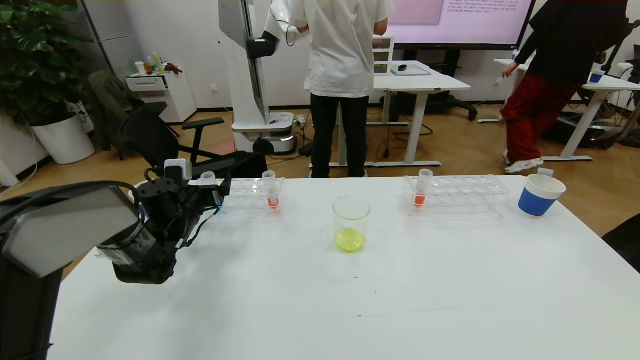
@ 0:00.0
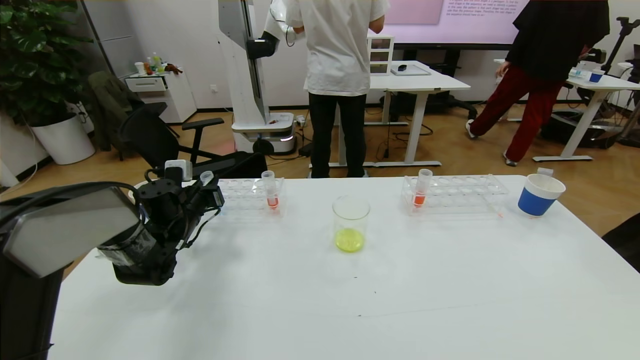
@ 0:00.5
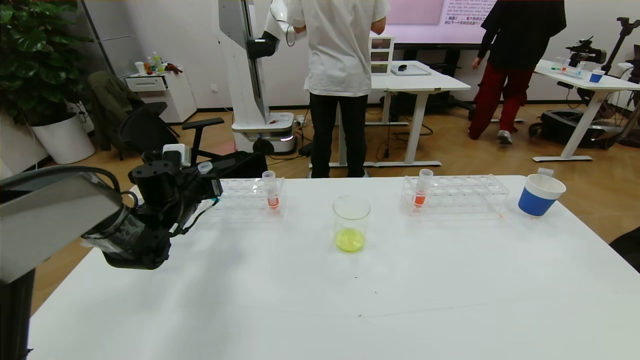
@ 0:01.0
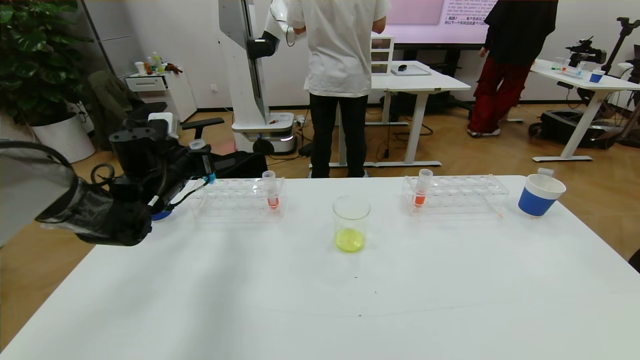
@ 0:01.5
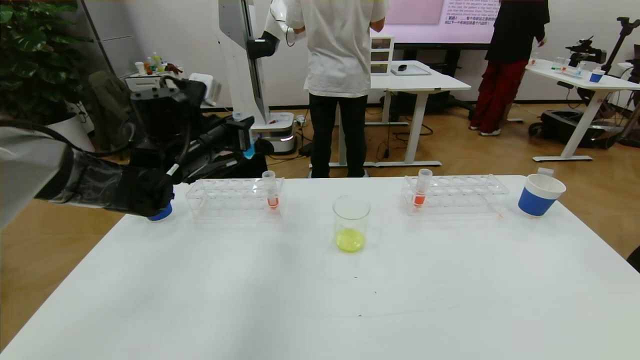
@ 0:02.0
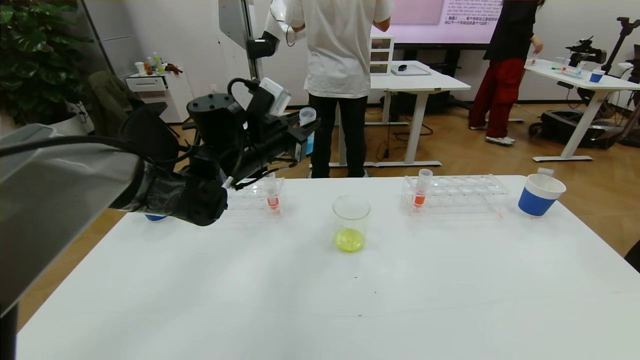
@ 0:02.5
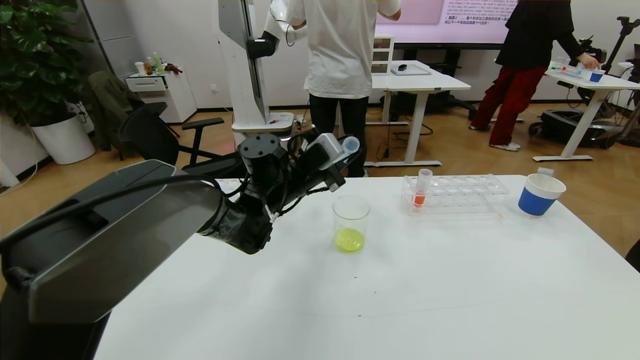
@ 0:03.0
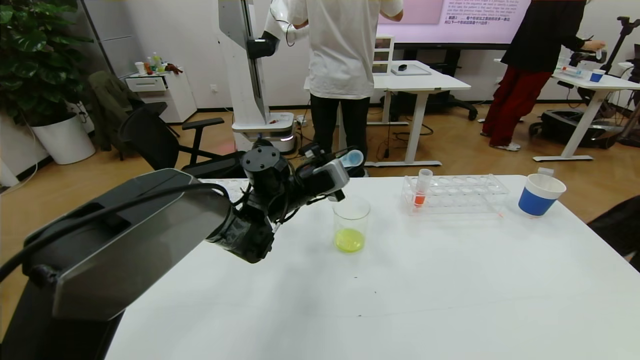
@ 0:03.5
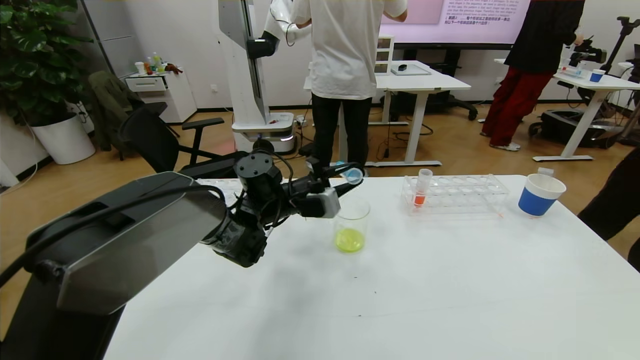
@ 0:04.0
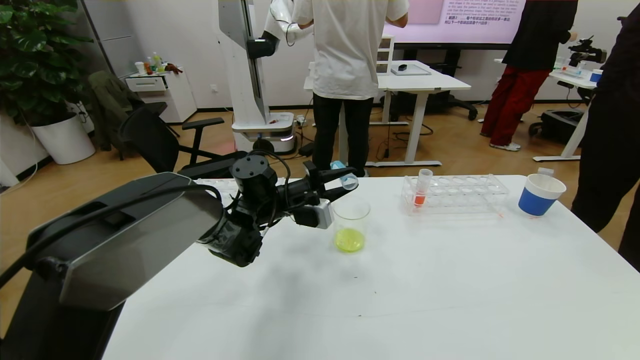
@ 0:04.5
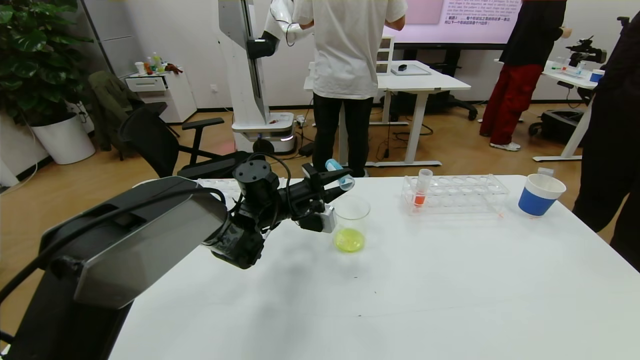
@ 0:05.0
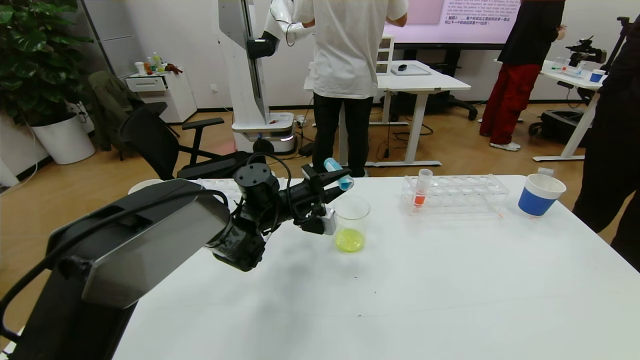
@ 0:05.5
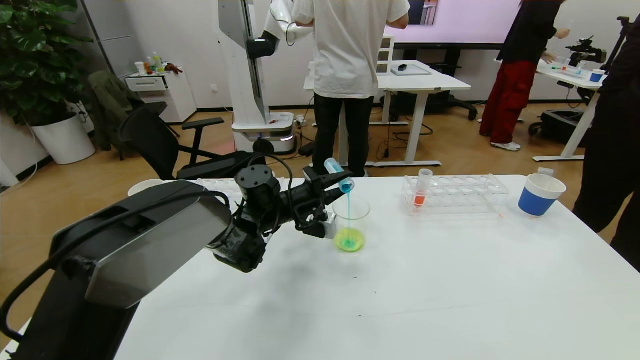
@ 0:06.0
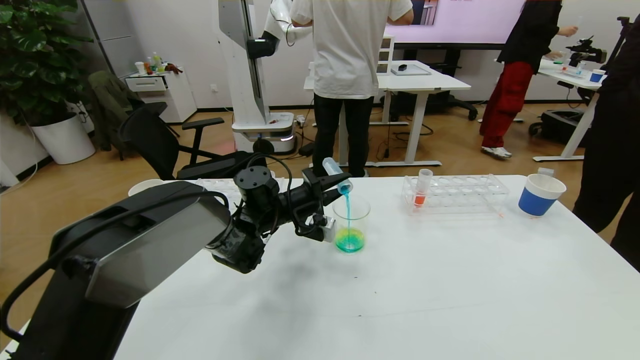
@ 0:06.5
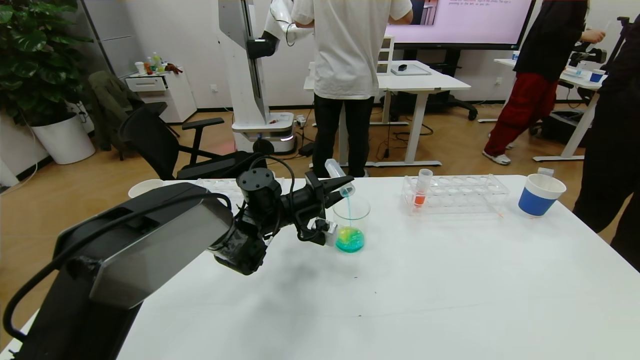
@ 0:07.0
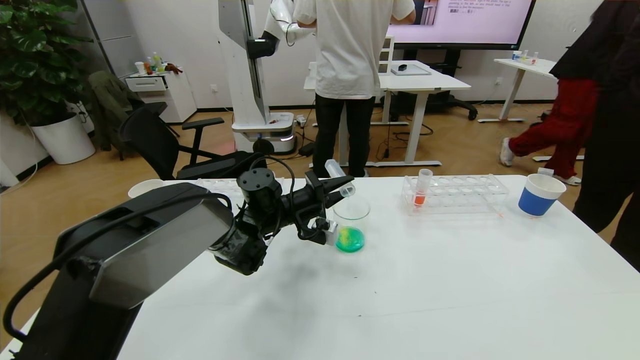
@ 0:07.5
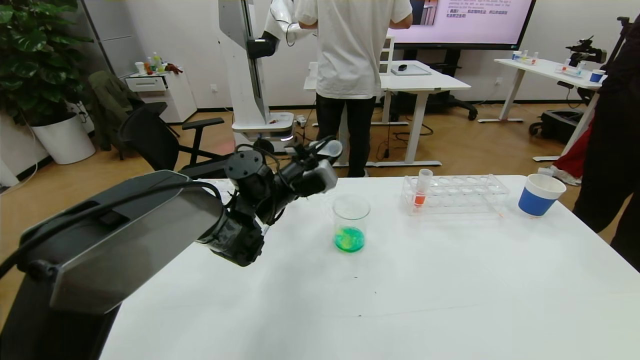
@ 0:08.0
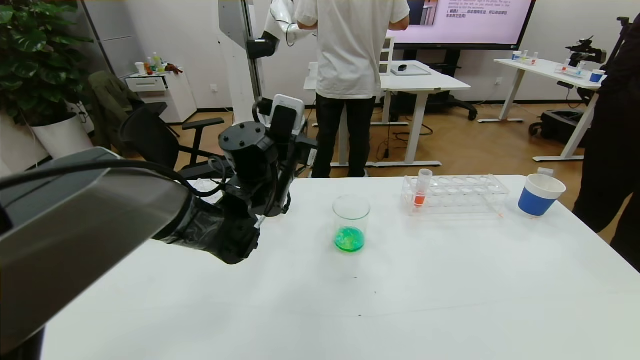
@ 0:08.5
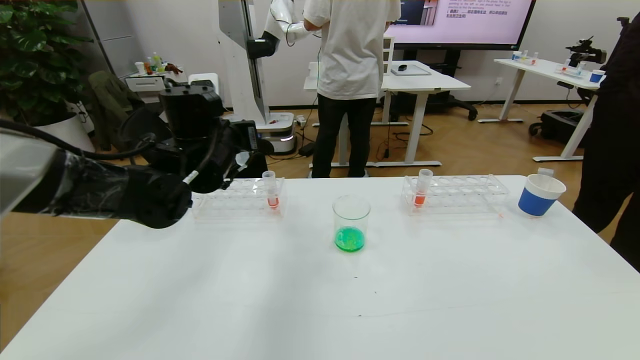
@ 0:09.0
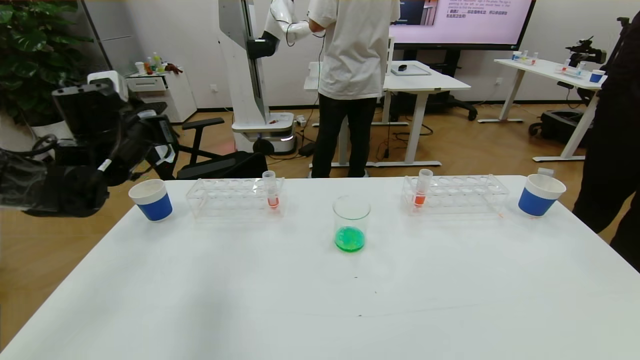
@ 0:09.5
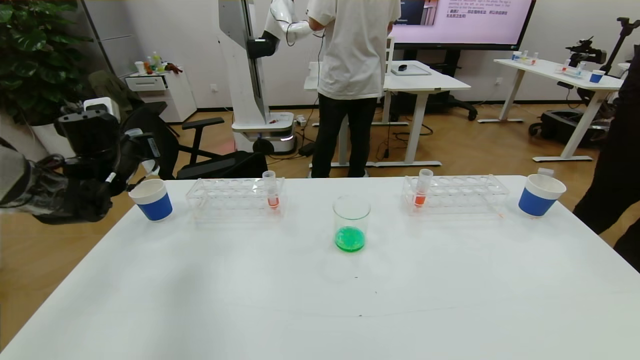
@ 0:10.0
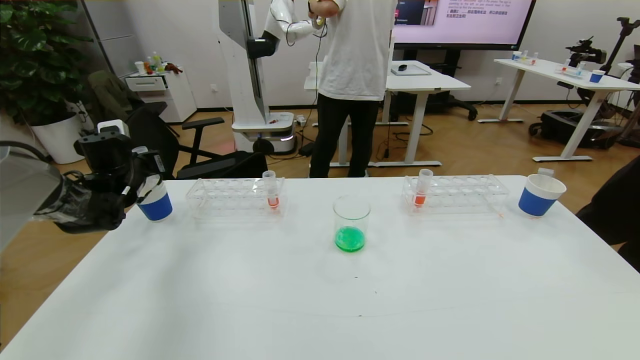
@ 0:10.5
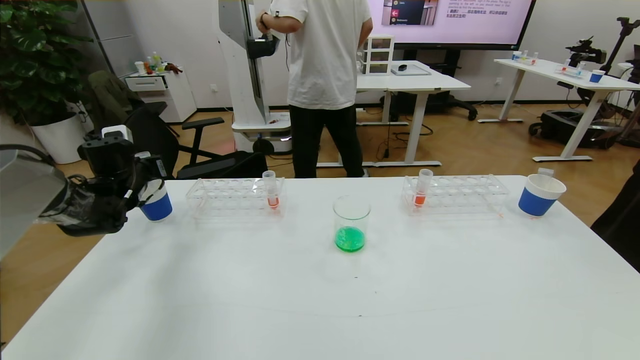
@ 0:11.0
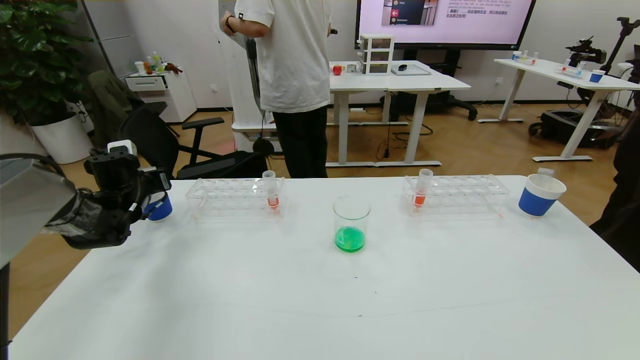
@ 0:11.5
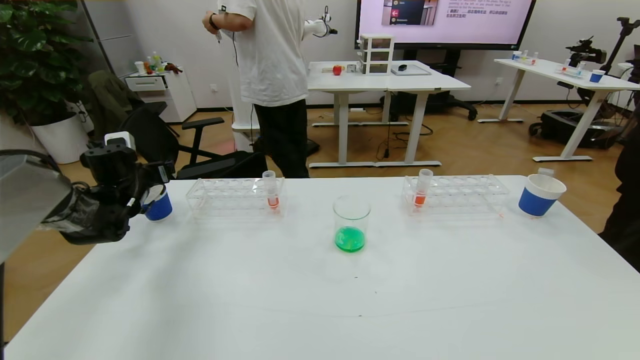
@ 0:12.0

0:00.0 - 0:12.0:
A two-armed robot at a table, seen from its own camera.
Task of the whole recording: pick up the test tube with yellow pigment and the test tube with blue pigment by grippers and pour them into the beaker.
0:00.0 - 0:02.0: The left gripper travels upward and to the right by approximately 20 cm, and closes its fingers.
0:02.0 - 0:04.0: The left gripper moves to the right and downward, about 15 cm.
0:08.0 - 0:10.0: The left gripper is displaced to the left by some 30 cm.
0:10.0 - 0:12.0: The left gripper goes about 5 cm downward, and opens its fingers.

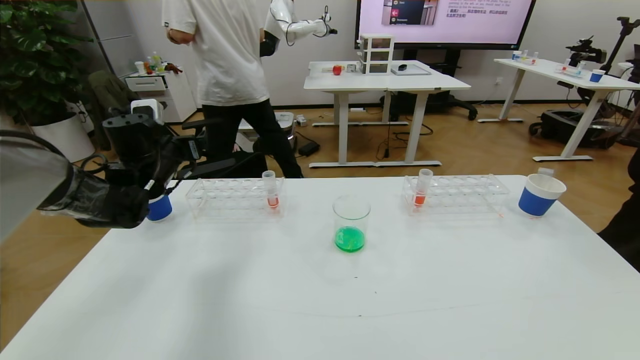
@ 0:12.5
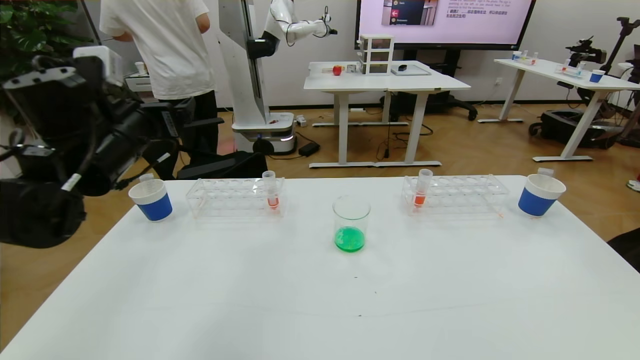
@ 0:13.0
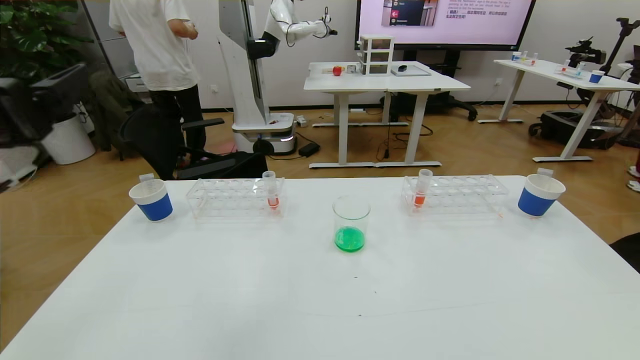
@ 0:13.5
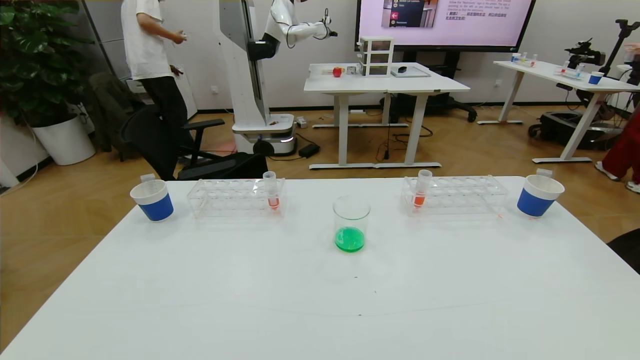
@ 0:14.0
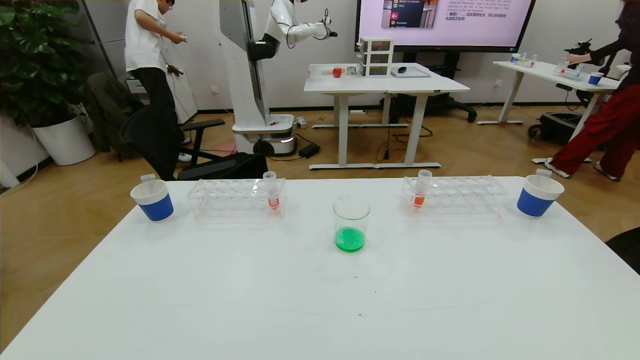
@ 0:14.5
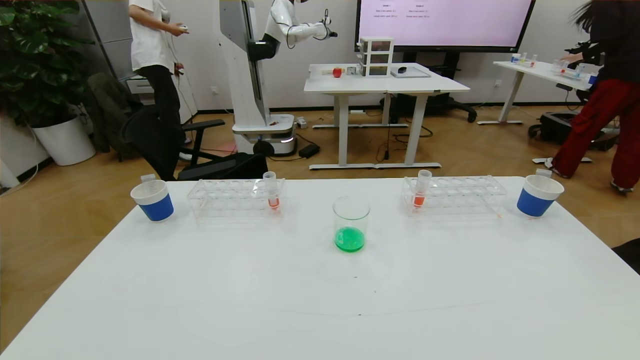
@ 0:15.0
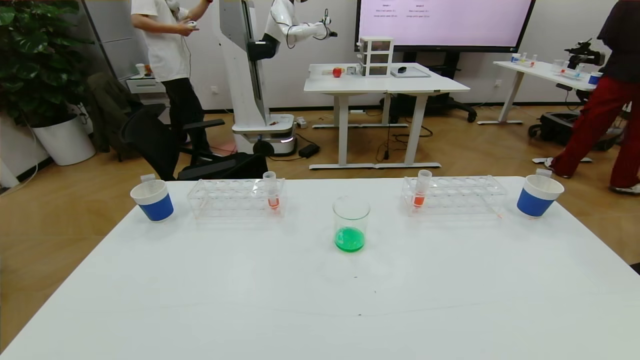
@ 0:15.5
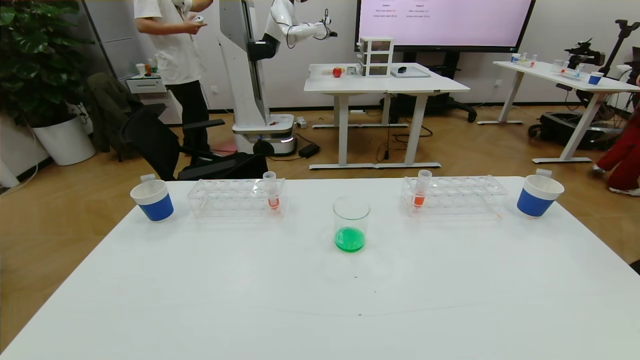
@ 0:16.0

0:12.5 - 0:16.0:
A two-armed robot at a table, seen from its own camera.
Task of the whole recording: pick up the test tube with yellow pigment and the test tube with blue pigment by grippers and pour them into the beaker.
0:12.5 - 0:14.5: The left gripper moves backward, some 50 cm.
0:14.5 - 0:16.0: The left gripper goes about 20 cm downward.
